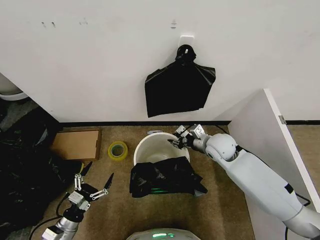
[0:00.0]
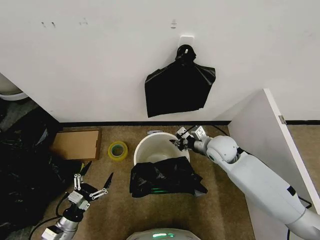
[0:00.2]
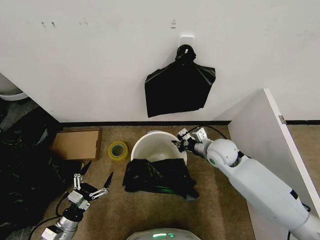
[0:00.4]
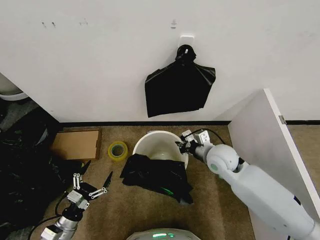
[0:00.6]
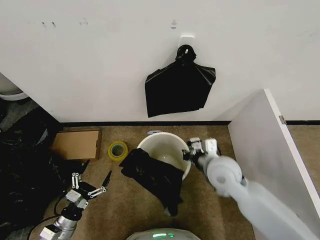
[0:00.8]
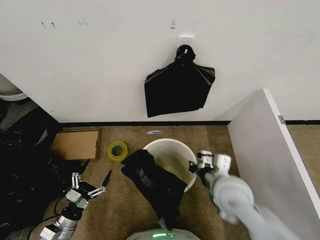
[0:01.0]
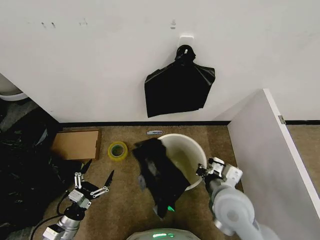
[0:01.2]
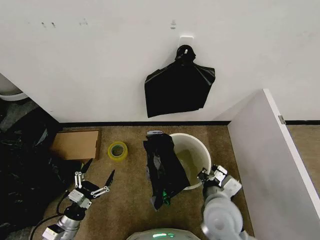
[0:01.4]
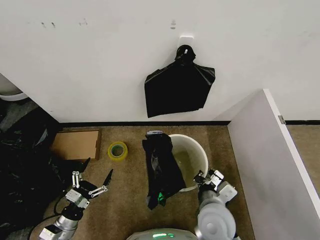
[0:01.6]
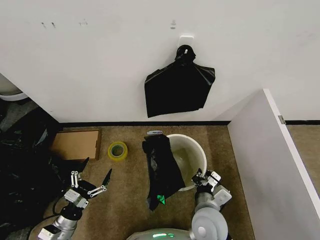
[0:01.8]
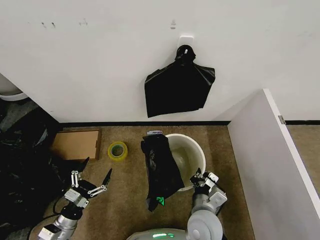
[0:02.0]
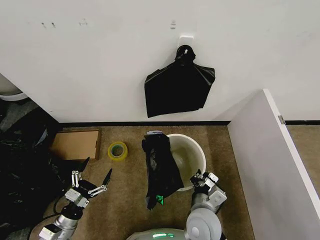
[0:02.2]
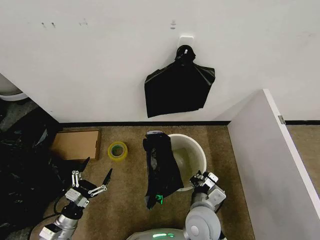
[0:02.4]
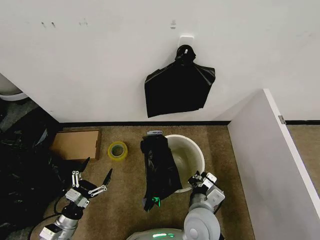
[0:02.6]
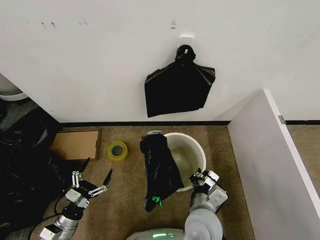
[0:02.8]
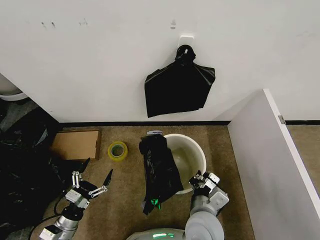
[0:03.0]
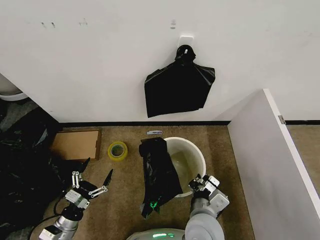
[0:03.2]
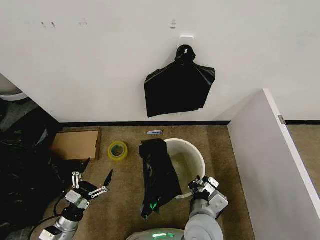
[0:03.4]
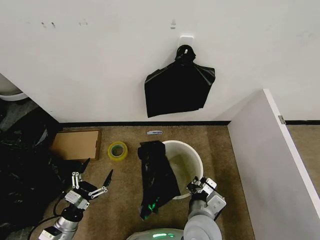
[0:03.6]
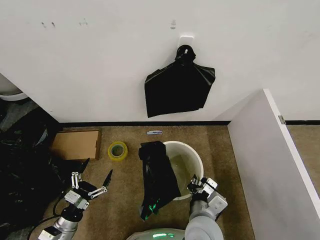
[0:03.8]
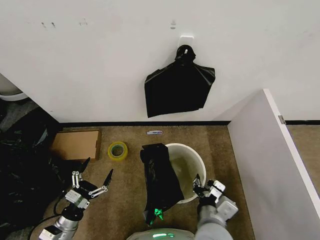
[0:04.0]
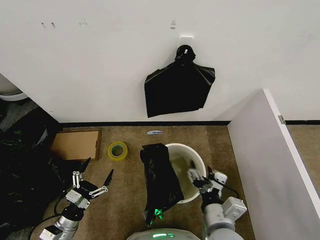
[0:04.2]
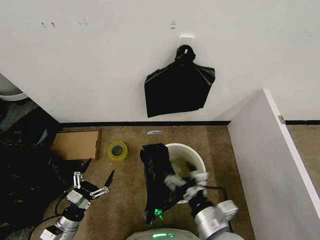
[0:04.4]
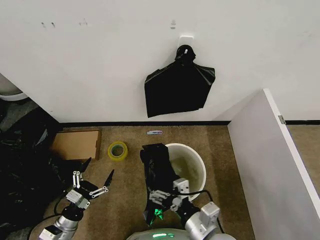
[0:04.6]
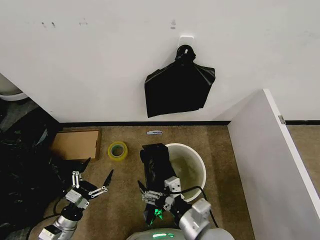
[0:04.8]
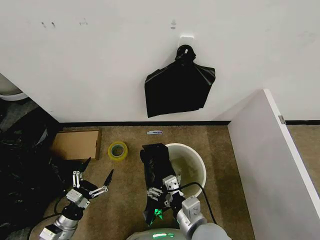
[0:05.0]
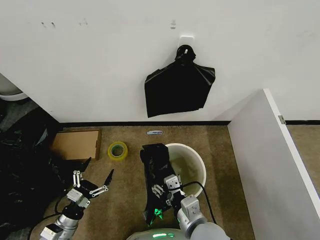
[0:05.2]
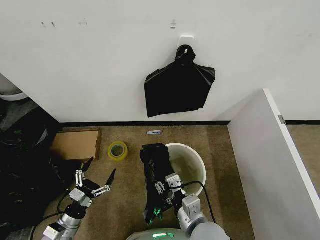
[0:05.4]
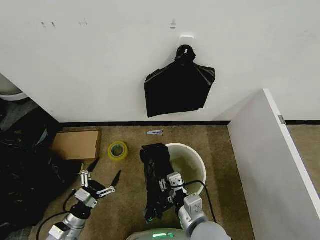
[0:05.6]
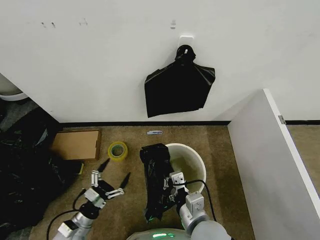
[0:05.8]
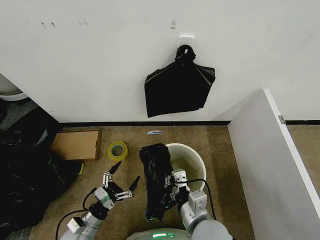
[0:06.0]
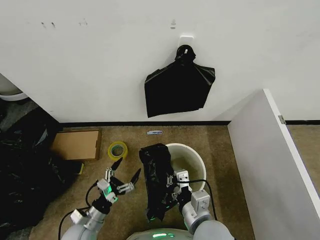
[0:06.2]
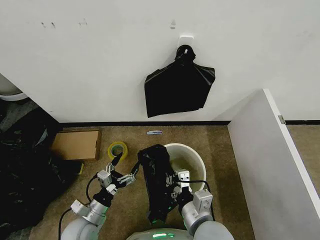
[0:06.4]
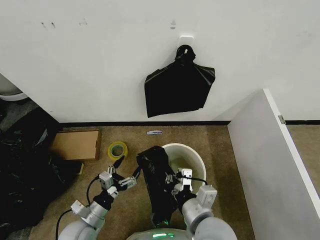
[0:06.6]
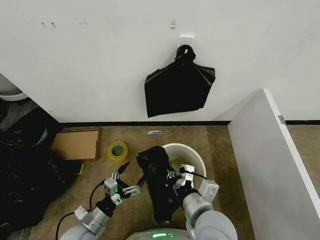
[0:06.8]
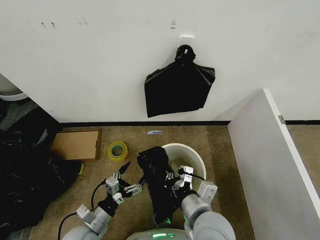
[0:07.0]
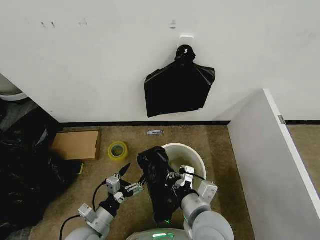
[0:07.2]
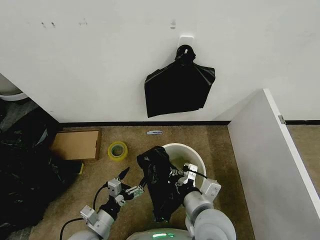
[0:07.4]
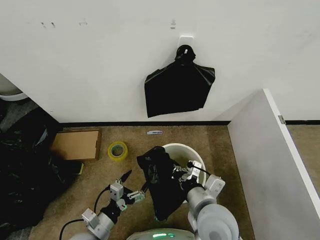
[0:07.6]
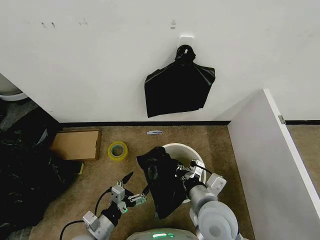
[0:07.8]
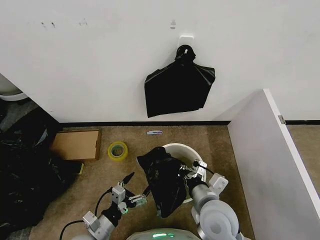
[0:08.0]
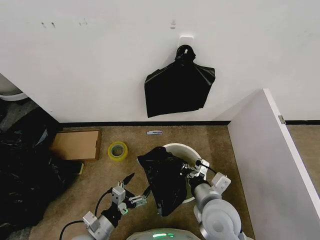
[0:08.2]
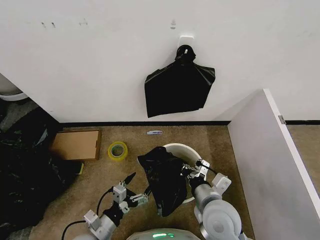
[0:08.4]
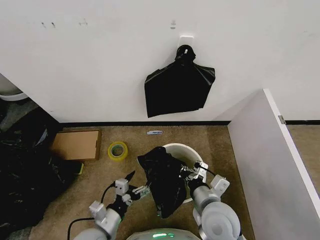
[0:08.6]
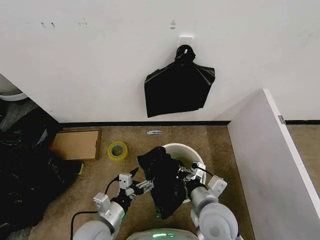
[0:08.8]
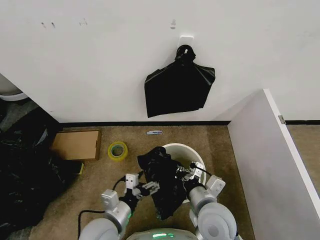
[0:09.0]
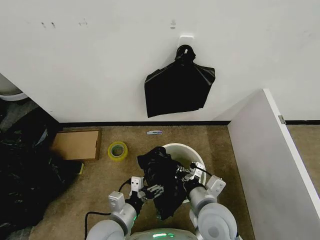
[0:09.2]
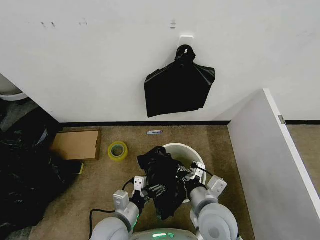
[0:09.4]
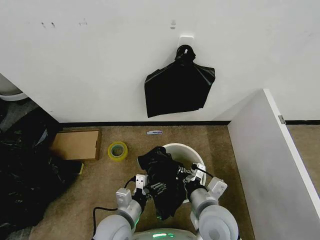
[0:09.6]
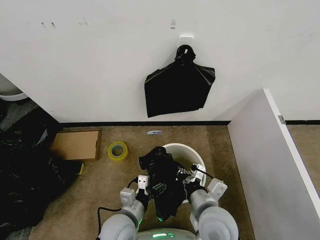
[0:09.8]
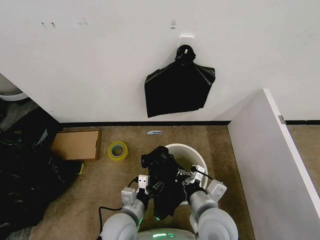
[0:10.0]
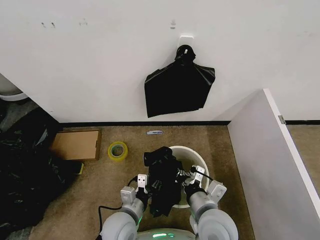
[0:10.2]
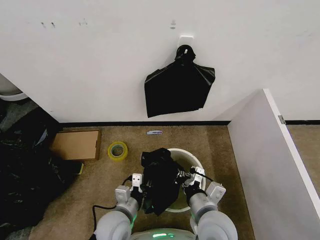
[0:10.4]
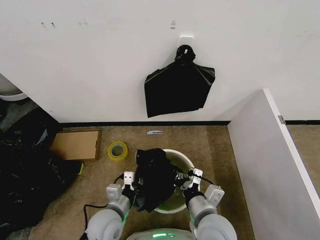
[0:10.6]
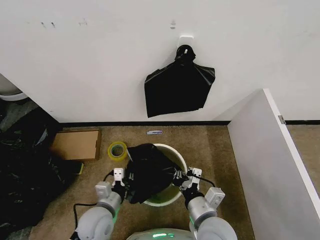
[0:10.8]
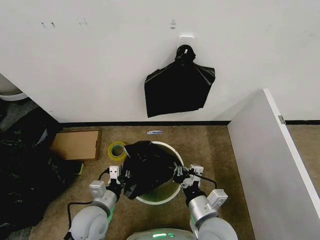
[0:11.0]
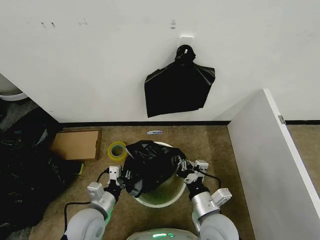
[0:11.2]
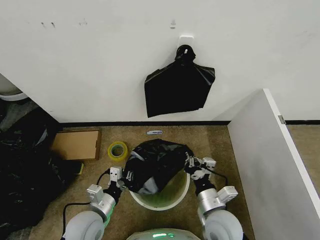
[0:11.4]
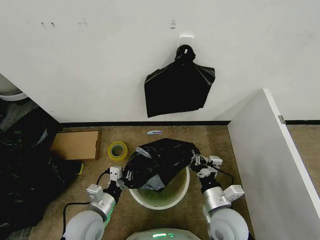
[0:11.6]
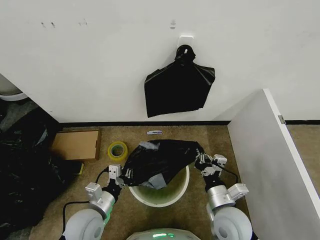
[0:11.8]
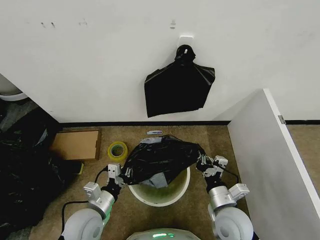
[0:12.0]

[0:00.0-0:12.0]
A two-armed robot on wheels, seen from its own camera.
Task of the whole recording: Place the garbage bag over the trash bin.
0:00.0 to 0:01.6: The right gripper shifts roughly 20 cm backward, and closes its fingers.
0:01.6 to 0:03.0: The grippers make only small movements.
0:03.0 to 0:04.4: The right gripper travels backward by some 5 cm, and opens.
0:04.4 to 0:06.0: The left gripper heads to the right, covering approximately 5 cm. Meanwhile the right gripper closes.
0:06.0 to 0:07.6: The left gripper heads upward and to the right, covering approximately 10 cm.
0:07.6 to 0:09.0: The left gripper moves upward and to the right, roughly 10 cm.
0:09.0 to 0:10.4: The left gripper ends up approximately 5 cm from where it was, and closes up.
0:10.4 to 0:12.0: The left gripper travels to the left by some 10 cm, while the right gripper goes some 5 cm to the right.

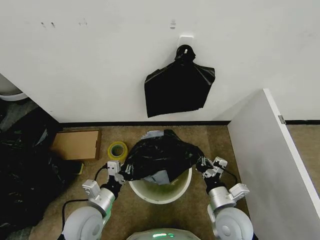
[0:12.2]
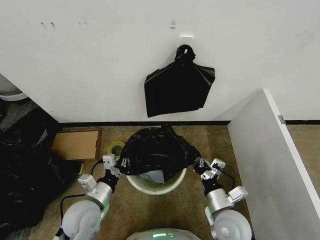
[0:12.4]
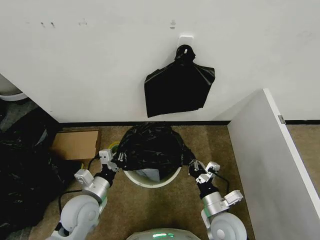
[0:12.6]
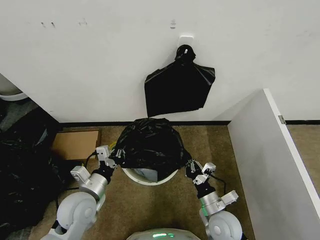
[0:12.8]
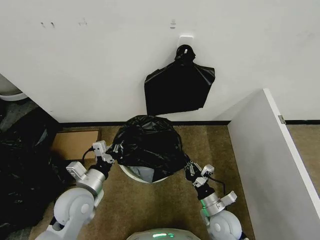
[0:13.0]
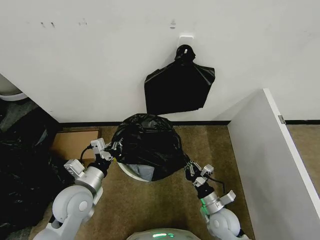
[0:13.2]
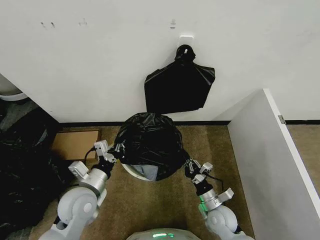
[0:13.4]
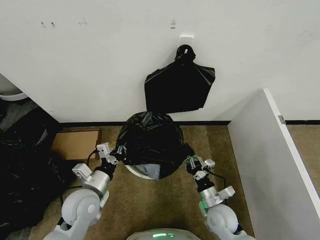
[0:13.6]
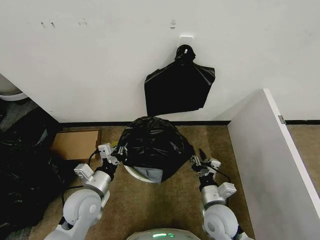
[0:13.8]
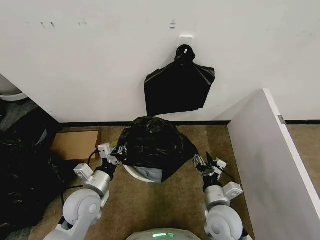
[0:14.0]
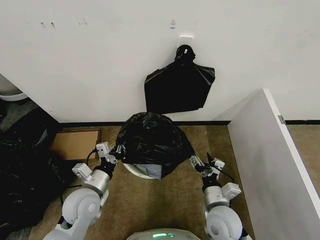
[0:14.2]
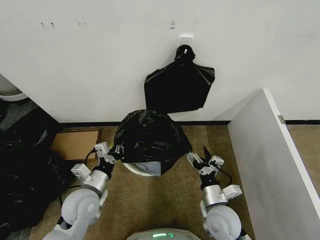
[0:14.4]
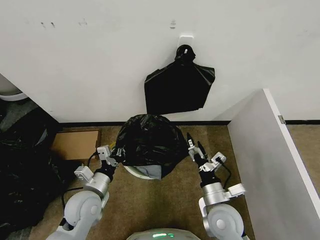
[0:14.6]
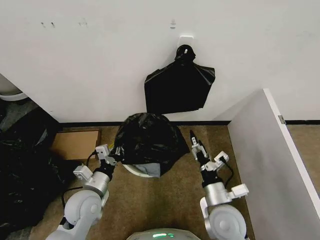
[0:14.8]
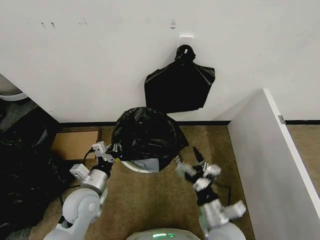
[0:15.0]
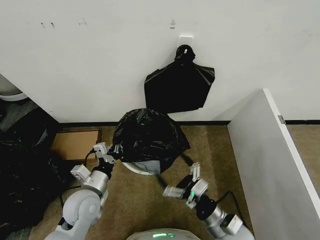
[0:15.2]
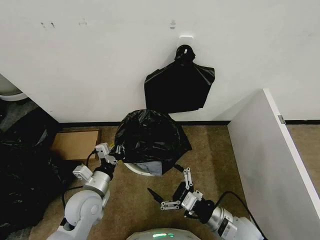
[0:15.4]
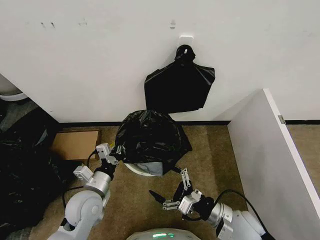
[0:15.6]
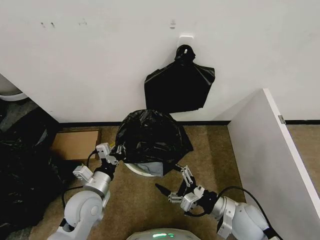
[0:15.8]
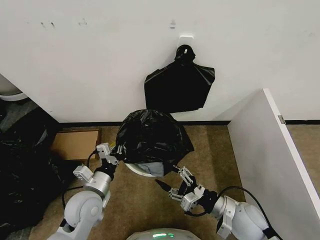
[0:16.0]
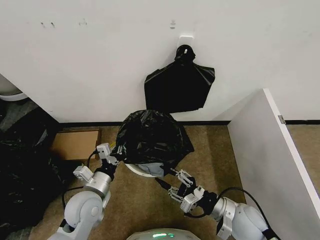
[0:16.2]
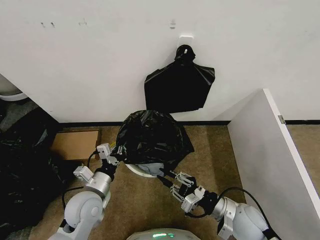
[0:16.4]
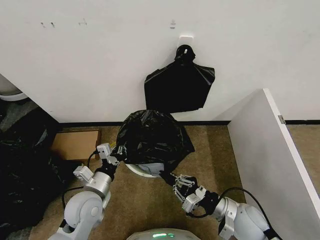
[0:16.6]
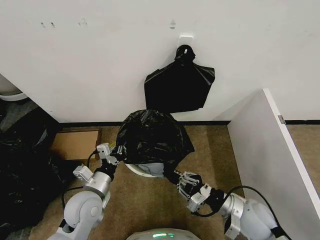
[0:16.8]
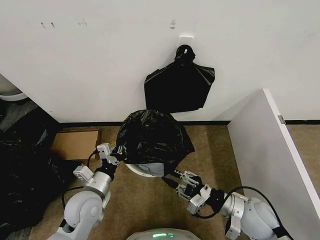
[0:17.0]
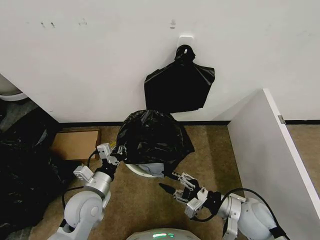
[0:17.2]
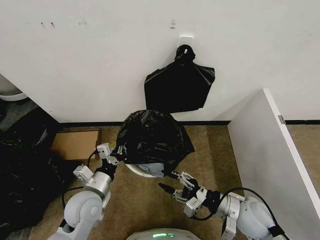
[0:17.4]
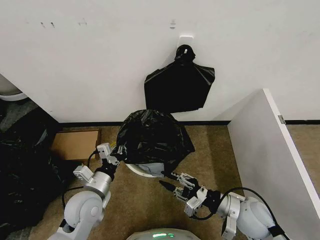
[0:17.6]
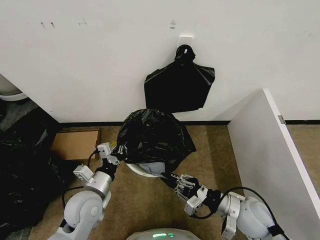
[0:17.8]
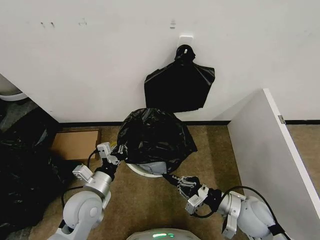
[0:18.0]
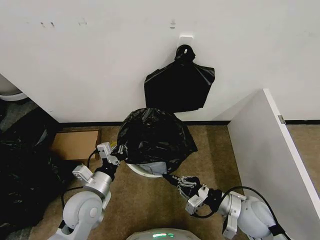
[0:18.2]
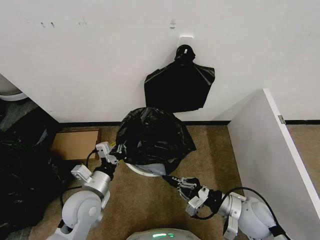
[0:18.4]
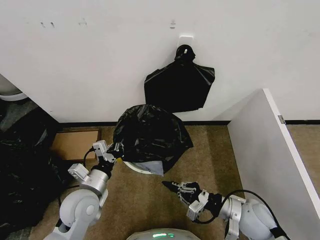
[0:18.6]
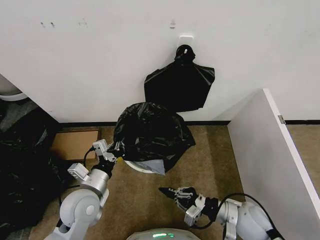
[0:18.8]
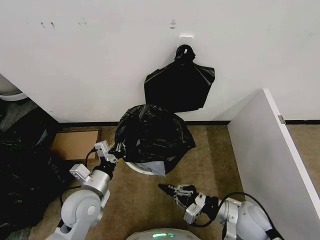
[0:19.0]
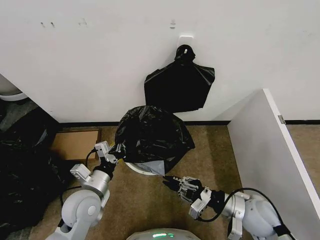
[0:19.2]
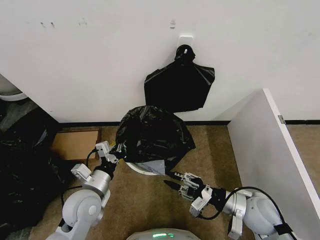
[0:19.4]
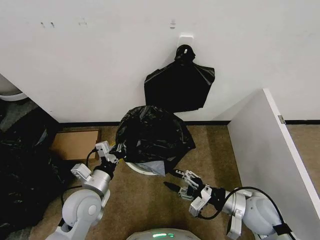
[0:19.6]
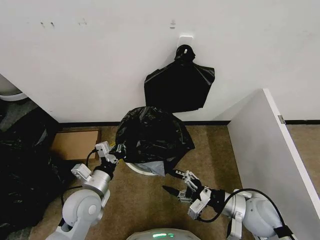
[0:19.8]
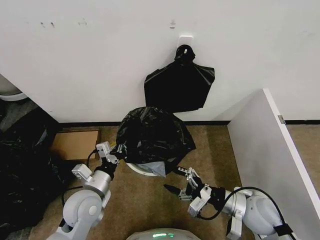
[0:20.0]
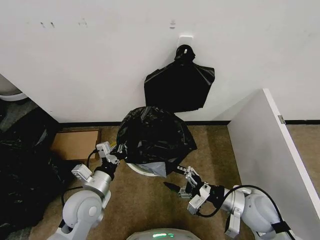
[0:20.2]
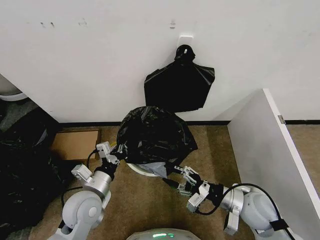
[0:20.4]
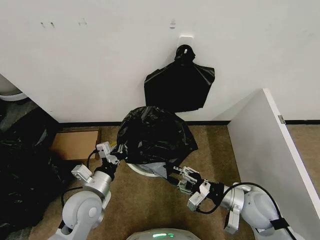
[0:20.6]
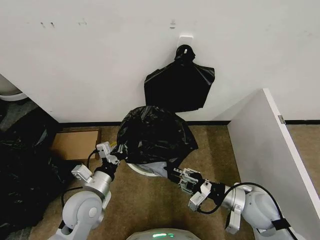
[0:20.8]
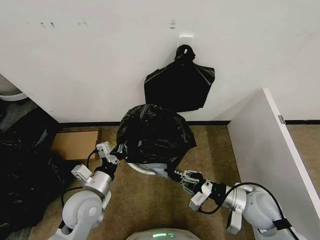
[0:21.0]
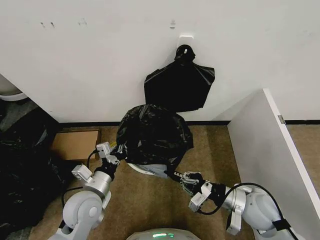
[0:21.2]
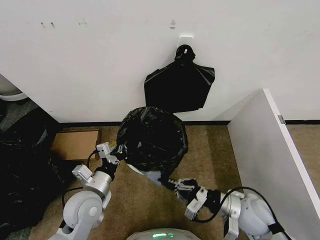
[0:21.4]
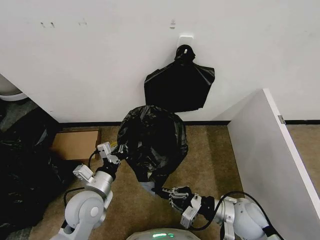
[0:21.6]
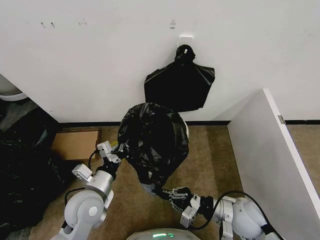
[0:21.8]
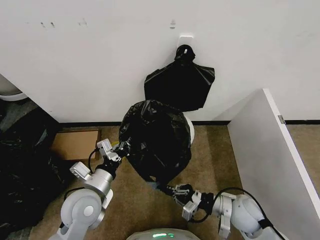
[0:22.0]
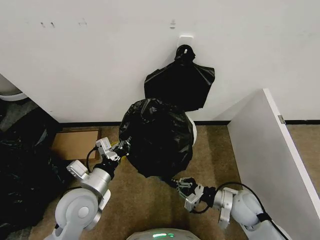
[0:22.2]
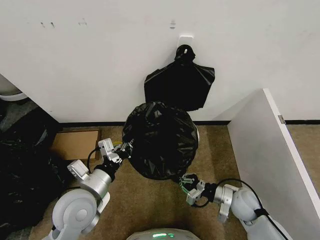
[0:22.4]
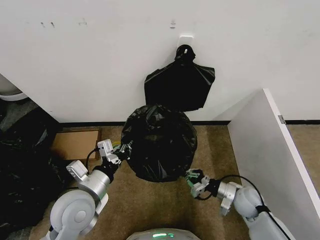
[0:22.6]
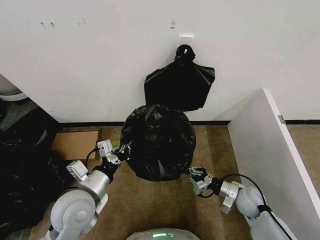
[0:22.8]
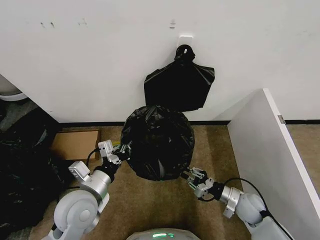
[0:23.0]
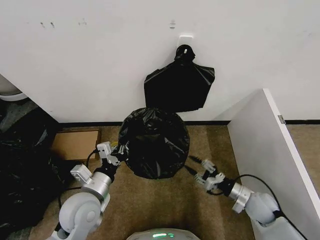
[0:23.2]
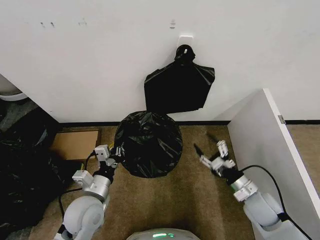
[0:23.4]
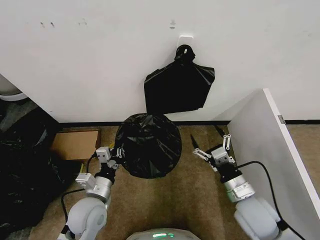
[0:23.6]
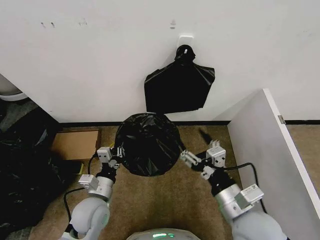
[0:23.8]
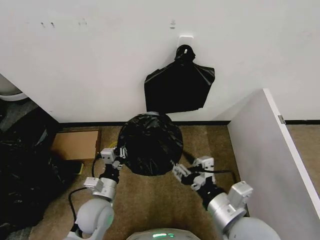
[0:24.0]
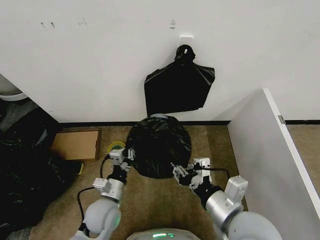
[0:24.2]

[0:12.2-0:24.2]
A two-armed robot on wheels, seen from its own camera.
Task of the whole recording: Place the garbage bag over the trash bin.
0:12.2 to 0:13.8: The left gripper shifts by some 5 cm; the right gripper goes downward and returns, approximately 10 cm each way, and opens.
0:13.8 to 0:15.2: The right gripper is displaced backward by some 5 cm, and opens.
0:15.2 to 0:16.6: The right gripper changes place by roughly 5 cm, and closes its fingers.
0:16.6 to 0:18.2: The right gripper opens and closes again.
0:18.2 to 0:19.8: The right gripper opens.
0:19.8 to 0:21.2: The right gripper closes.
0:21.2 to 0:22.6: The left gripper goes approximately 5 cm upward. The right gripper is displaced downward and forward by roughly 10 cm.
0:22.6 to 0:24.2: The left gripper is displaced downward by about 10 cm; the right gripper shifts about 30 cm upward, backward and to the left, and opens, then closes again.
